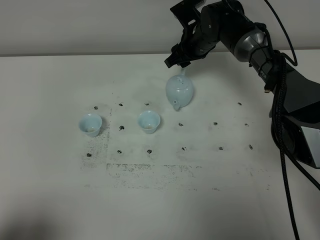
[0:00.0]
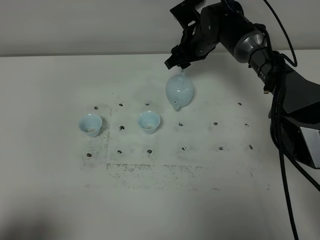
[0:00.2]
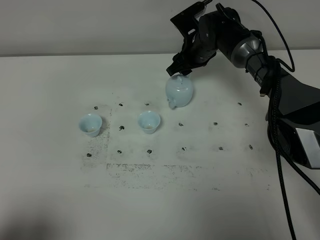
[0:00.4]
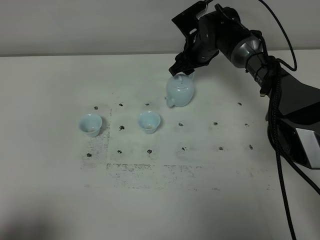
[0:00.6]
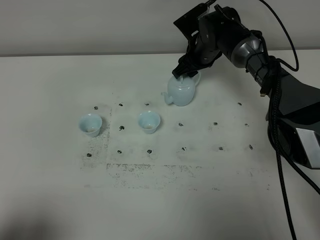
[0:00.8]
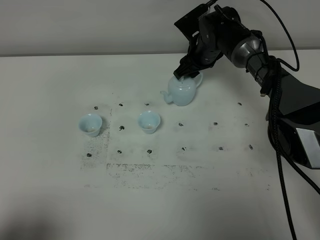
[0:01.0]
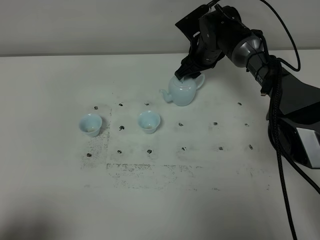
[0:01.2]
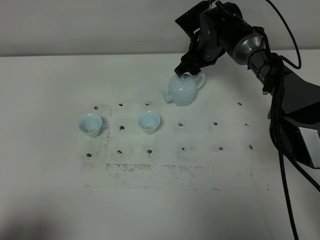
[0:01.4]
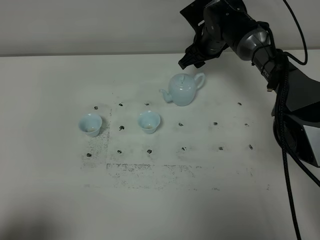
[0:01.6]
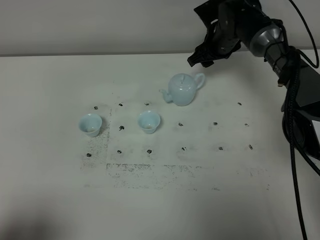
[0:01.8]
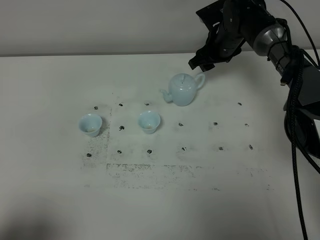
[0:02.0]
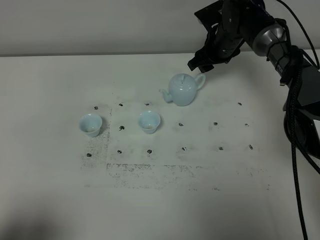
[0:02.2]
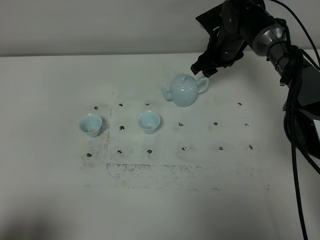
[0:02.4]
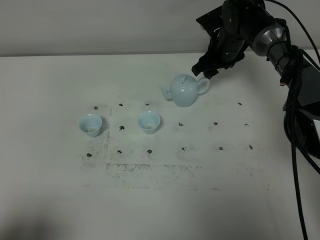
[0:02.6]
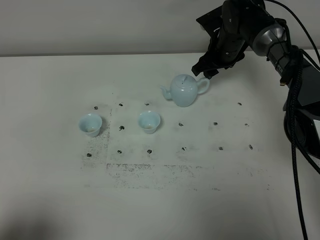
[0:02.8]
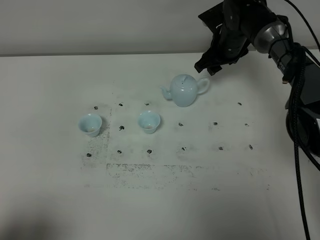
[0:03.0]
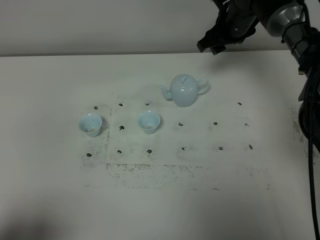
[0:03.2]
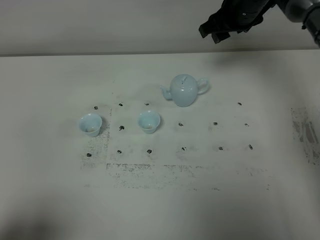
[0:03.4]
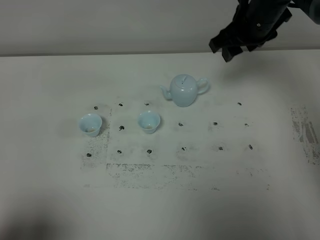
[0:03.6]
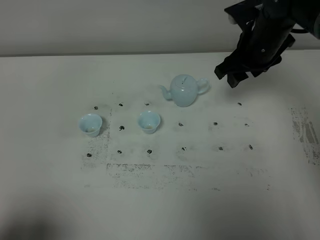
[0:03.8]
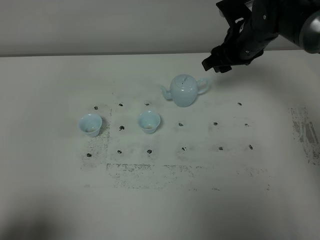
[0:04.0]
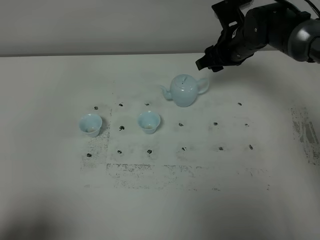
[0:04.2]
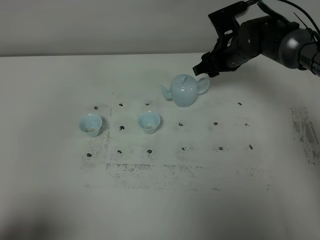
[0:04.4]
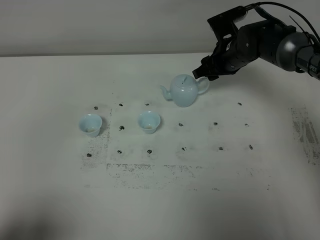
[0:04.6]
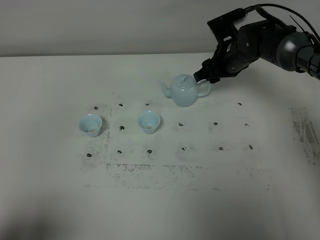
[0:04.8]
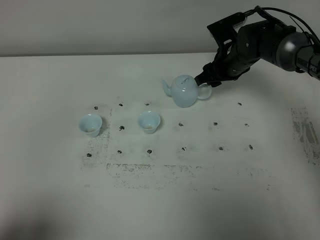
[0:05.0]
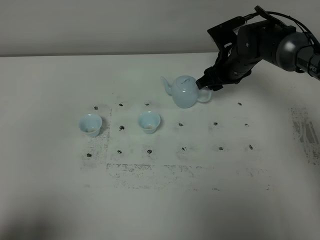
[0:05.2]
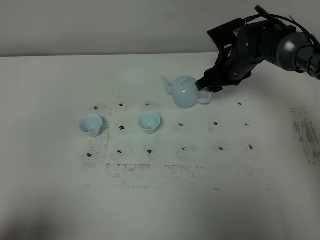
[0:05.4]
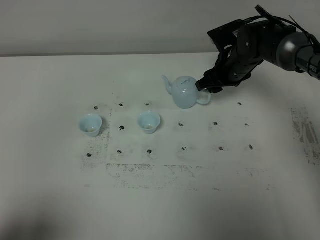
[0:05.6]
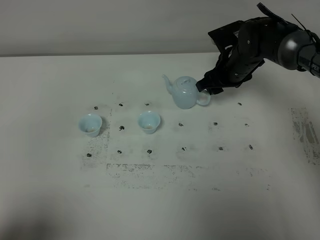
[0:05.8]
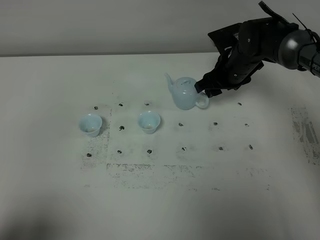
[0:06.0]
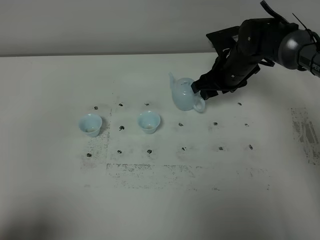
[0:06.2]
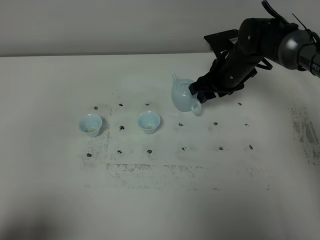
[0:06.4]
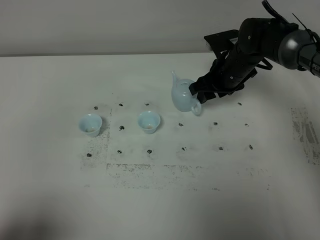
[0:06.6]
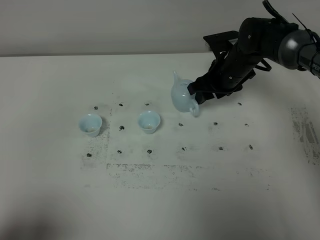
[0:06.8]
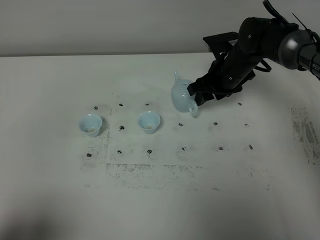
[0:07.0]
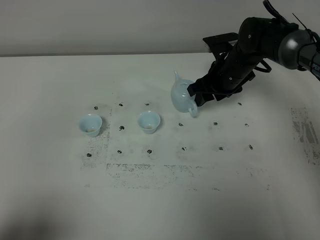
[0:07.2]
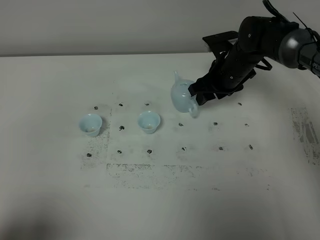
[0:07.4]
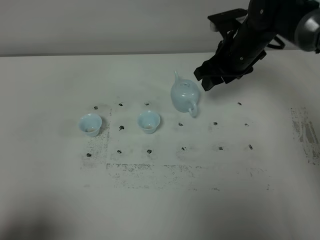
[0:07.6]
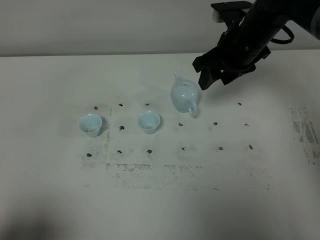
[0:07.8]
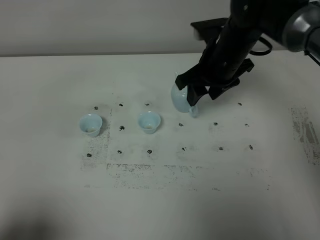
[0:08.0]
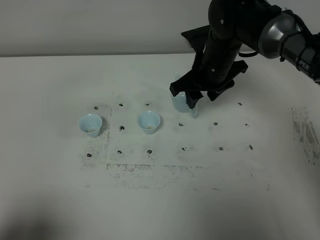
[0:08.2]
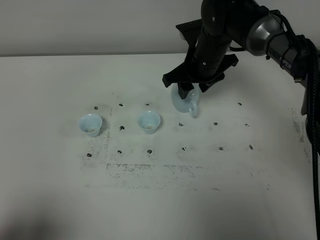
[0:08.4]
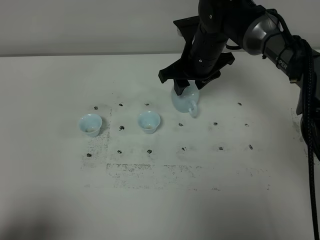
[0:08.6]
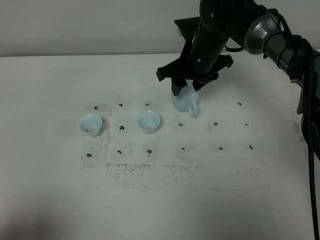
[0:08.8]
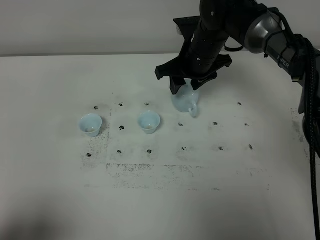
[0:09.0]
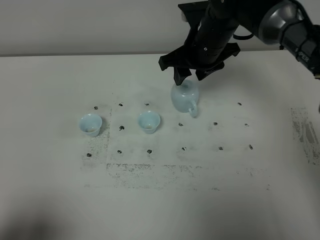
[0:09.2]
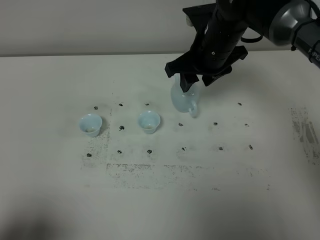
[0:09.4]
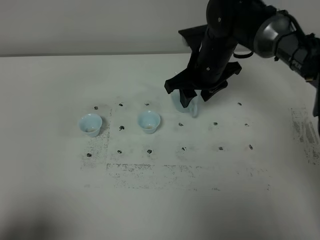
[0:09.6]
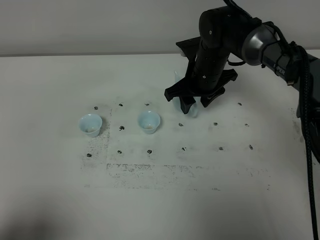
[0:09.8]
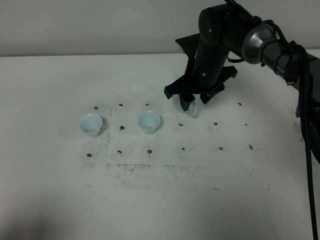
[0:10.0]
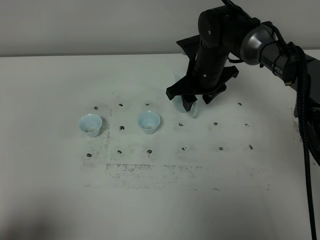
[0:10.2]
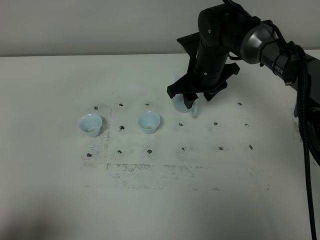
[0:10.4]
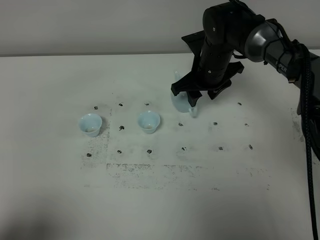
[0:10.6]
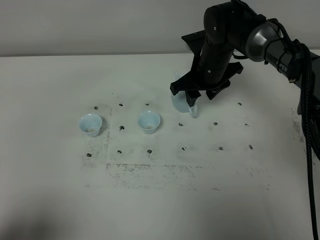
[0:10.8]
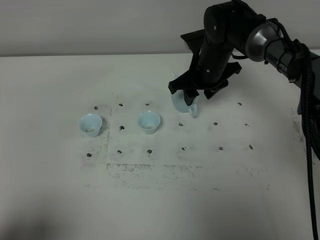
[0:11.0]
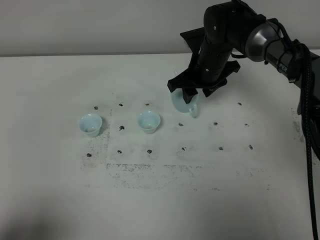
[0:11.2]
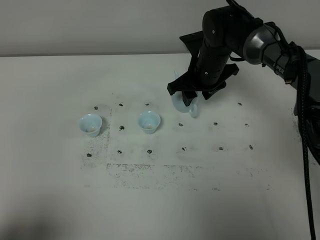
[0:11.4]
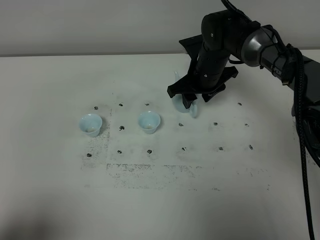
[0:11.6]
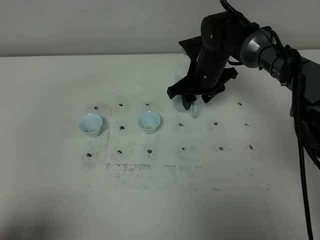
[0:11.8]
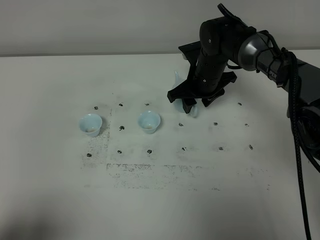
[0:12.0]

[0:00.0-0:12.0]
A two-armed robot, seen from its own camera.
Task of the whole recording: grasp the blue porcelain teapot and pour the tea into the two blue porcelain teacups one by one, put the blue porcelain teapot back in its original place.
0:00.0 to 0:03.0: The grippers make only small movements.
0:03.0 to 0:04.4: The right gripper moves roughly 10 cm upward and comes back.
0:04.4 to 0:06.0: There are only small adjustments of the grippers.
0:06.0 to 0:07.6: The right gripper heads upward, covering about 5 cm.
0:07.6 to 0:09.0: The right gripper moves to the left, some 5 cm.
0:09.0 to 0:10.4: The grippers make only small movements.
0:10.4 to 0:12.0: The grippers stay close to where they were, moving slightly.

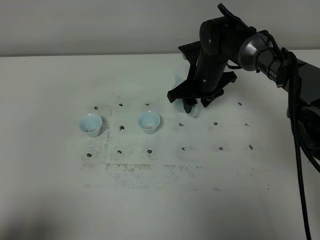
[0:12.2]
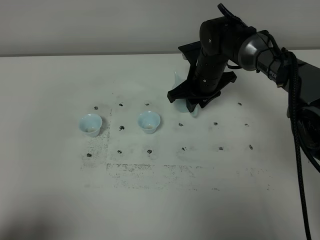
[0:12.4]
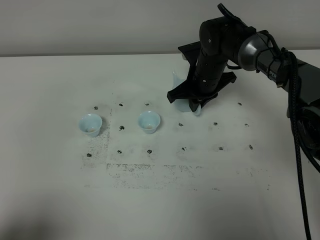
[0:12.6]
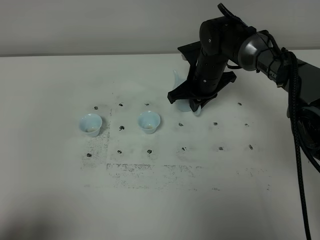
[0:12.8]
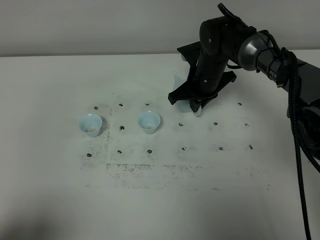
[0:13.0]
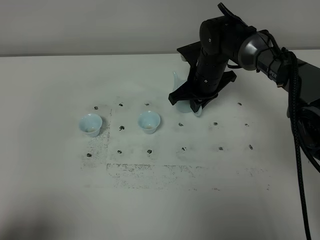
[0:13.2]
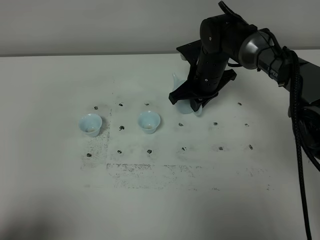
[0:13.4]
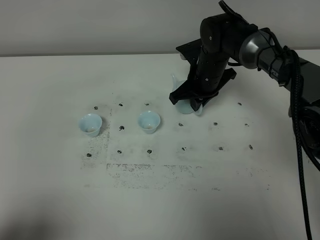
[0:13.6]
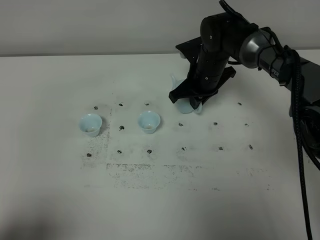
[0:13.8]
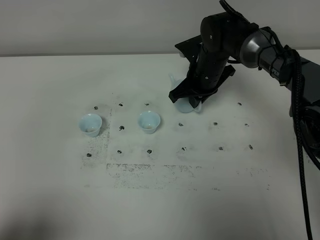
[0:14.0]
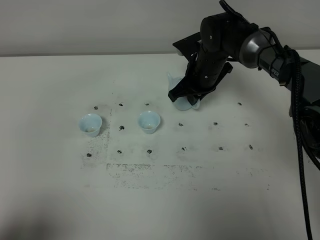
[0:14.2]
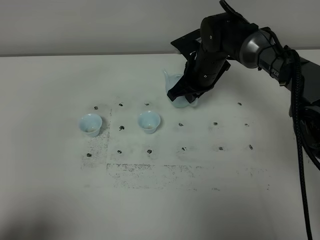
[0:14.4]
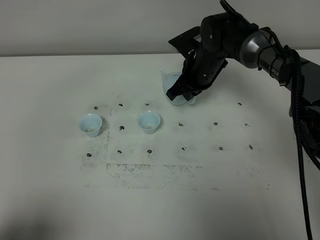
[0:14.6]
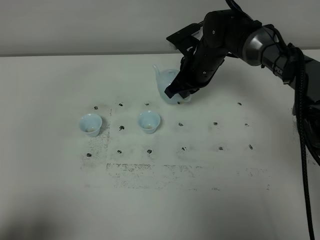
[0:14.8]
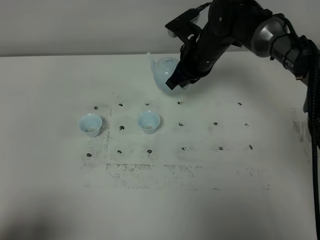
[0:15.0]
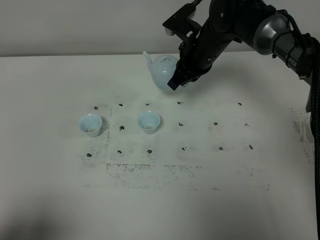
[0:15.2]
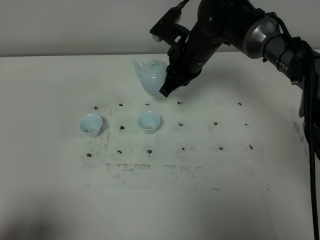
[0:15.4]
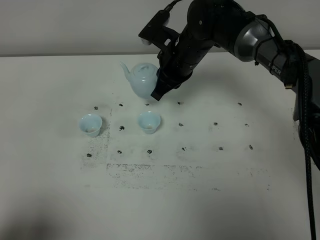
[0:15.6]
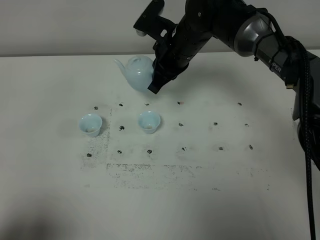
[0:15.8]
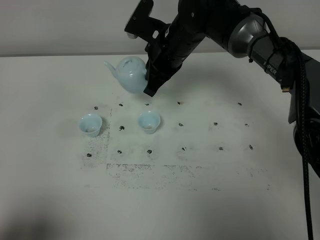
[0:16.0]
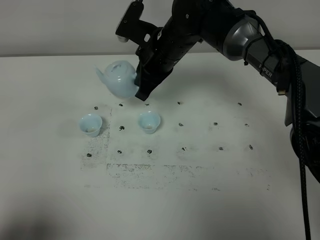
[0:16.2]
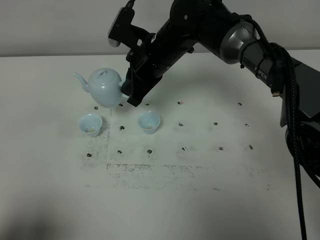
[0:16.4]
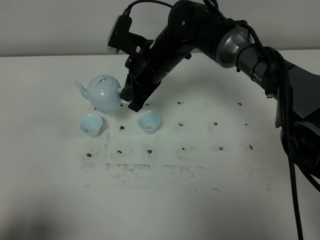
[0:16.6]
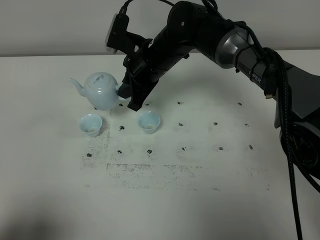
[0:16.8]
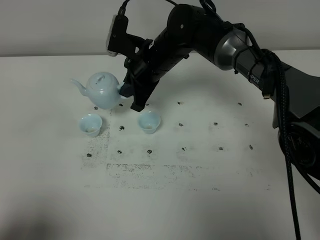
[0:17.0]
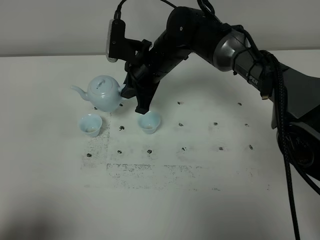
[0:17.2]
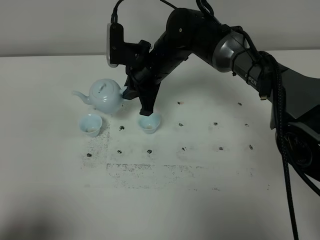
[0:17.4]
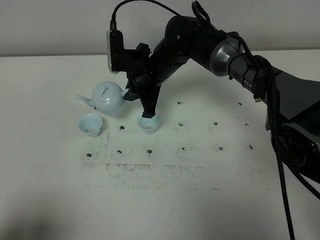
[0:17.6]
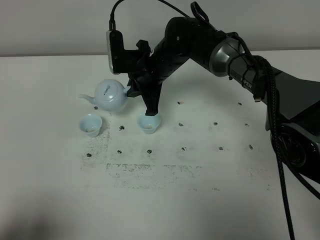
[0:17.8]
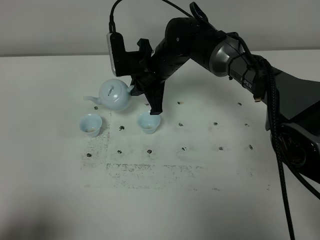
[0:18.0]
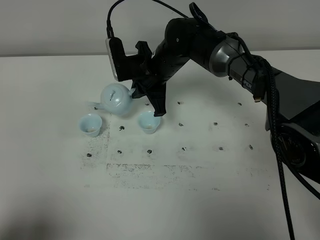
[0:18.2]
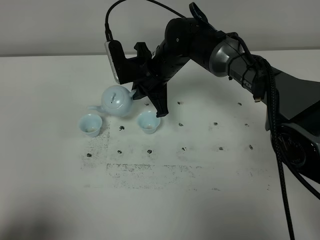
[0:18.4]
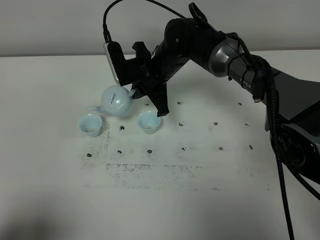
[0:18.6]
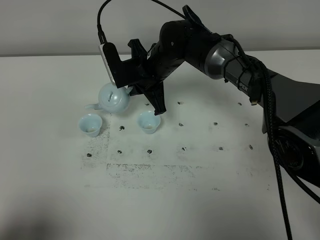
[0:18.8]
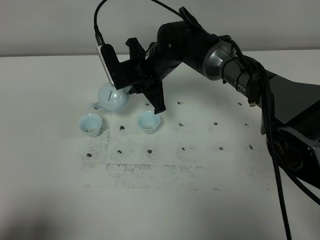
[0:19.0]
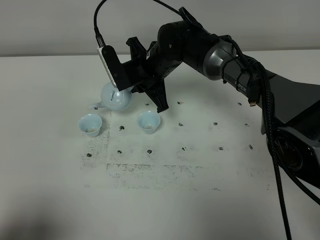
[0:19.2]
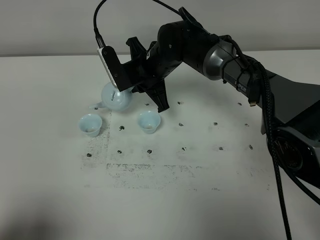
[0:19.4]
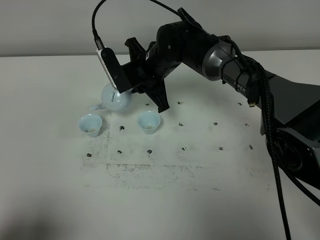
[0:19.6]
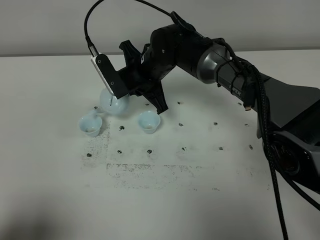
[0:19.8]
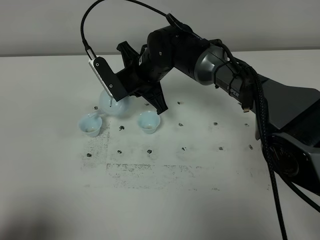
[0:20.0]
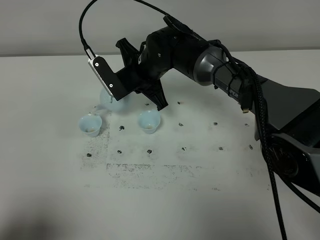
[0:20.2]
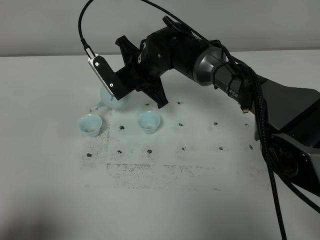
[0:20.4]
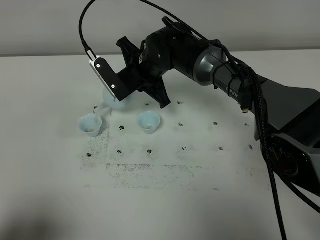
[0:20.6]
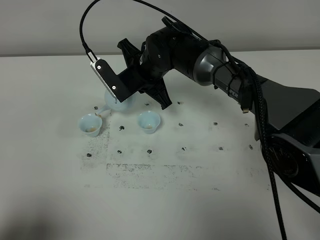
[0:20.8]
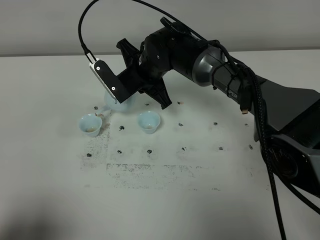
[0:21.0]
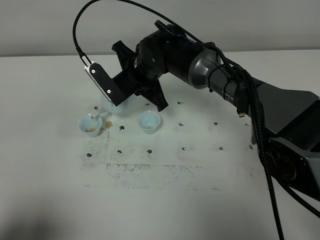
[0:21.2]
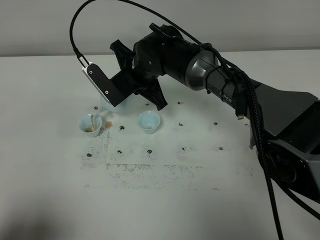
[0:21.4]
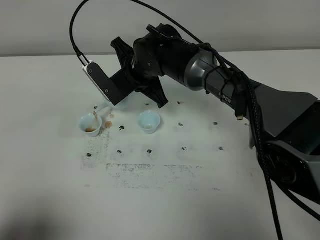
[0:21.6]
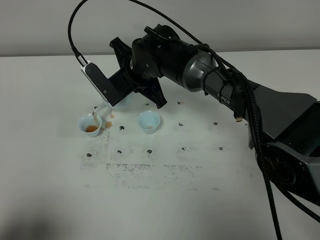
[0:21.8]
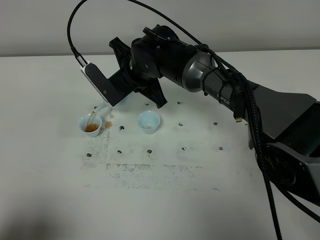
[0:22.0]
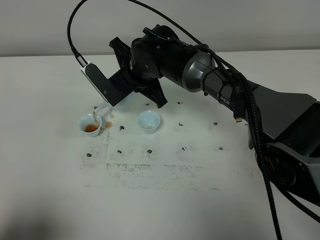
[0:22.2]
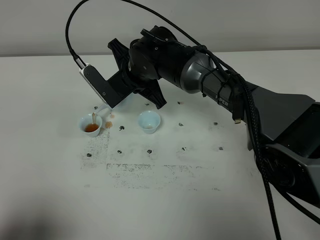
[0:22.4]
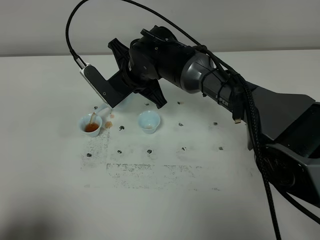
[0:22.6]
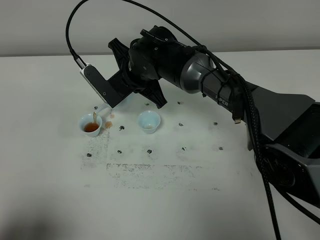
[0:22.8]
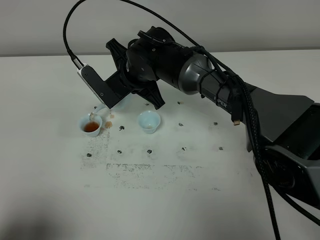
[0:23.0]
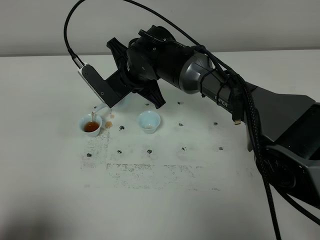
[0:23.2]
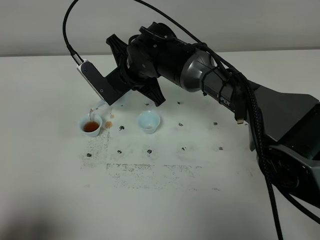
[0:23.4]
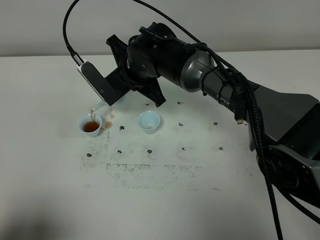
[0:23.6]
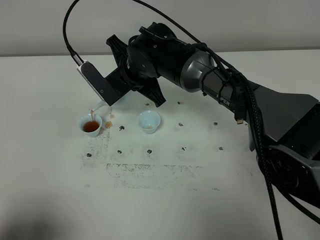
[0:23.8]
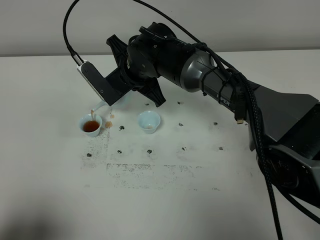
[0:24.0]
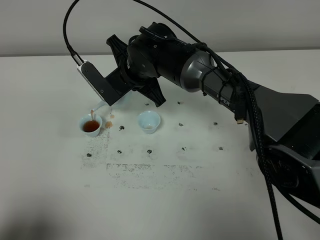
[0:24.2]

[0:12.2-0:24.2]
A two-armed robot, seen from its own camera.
Task of the whole recording: grasp the blue porcelain teapot and pour the tea into the two blue porcelain teacups one by one, put the blue porcelain teapot back in its original place.
0:12.2 to 0:13.8: The right gripper closes its fingers.
0:13.8 to 0:15.2: The right gripper moves upward, roughly 5 cm.
0:15.2 to 0:16.6: The right gripper heads to the left, covering about 10 cm.
0:19.8 to 0:22.6: The grippers move only a little.
0:22.6 to 0:24.2: The two grippers keep their place.
